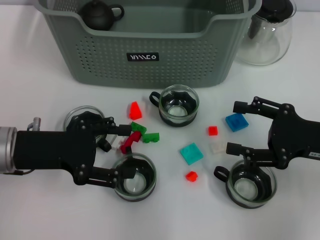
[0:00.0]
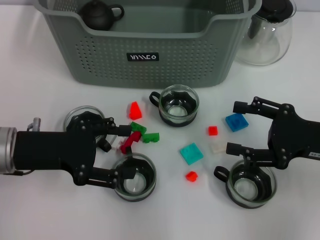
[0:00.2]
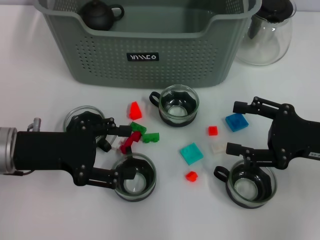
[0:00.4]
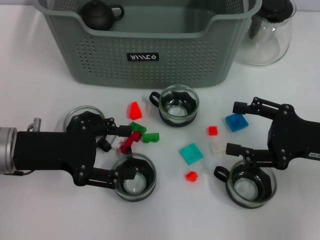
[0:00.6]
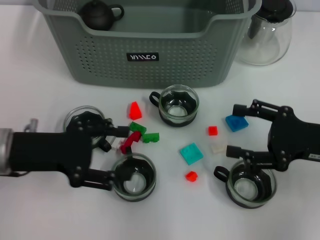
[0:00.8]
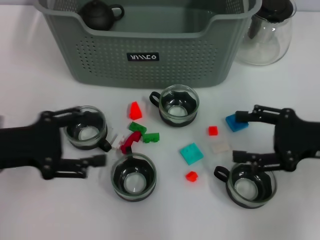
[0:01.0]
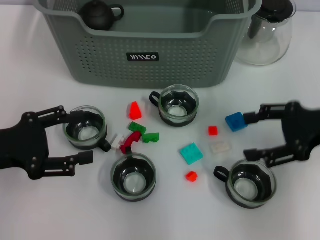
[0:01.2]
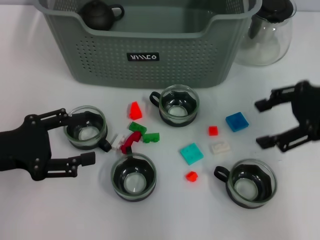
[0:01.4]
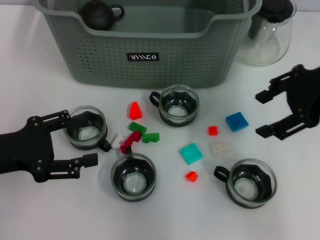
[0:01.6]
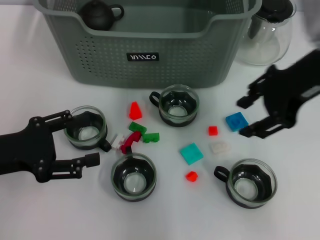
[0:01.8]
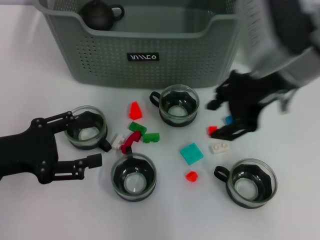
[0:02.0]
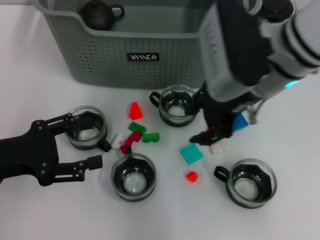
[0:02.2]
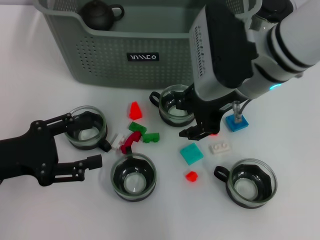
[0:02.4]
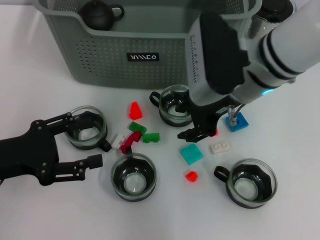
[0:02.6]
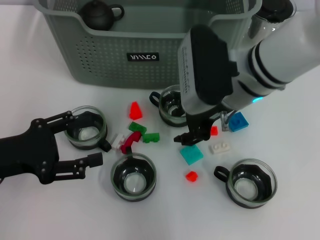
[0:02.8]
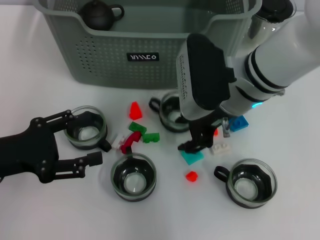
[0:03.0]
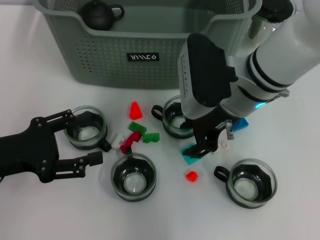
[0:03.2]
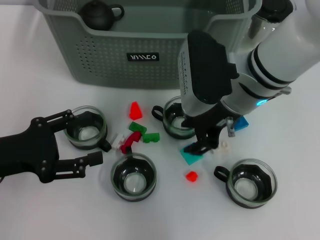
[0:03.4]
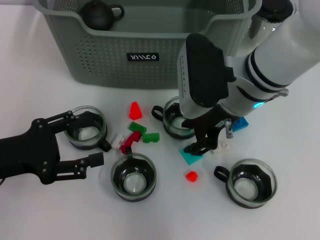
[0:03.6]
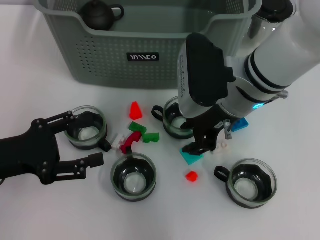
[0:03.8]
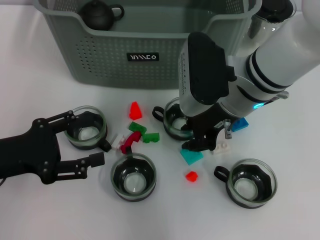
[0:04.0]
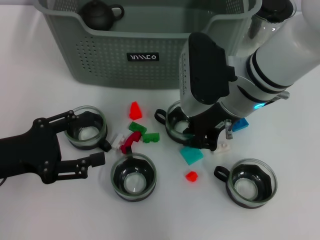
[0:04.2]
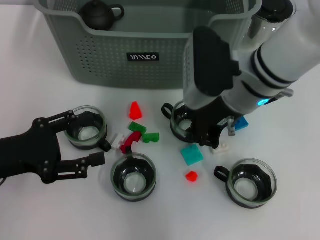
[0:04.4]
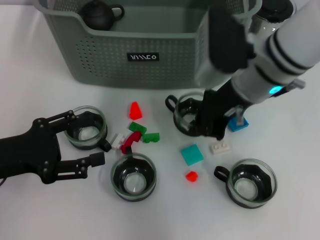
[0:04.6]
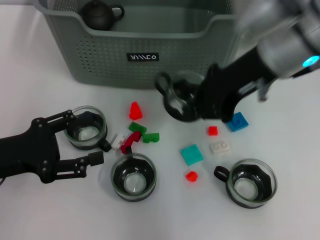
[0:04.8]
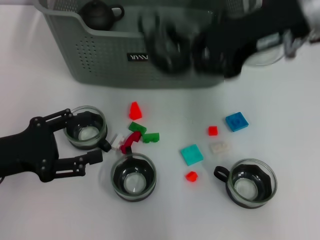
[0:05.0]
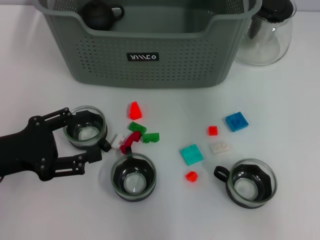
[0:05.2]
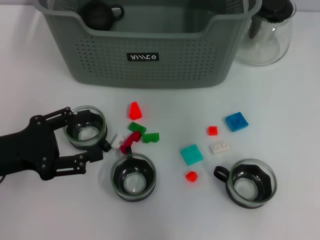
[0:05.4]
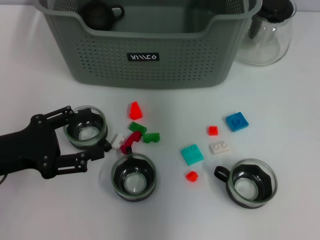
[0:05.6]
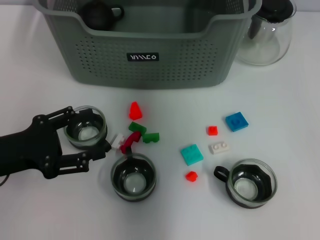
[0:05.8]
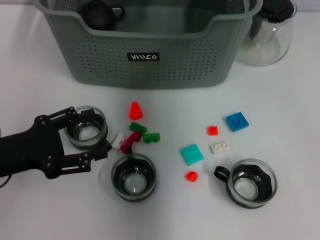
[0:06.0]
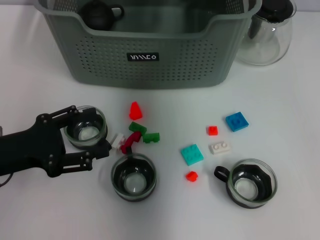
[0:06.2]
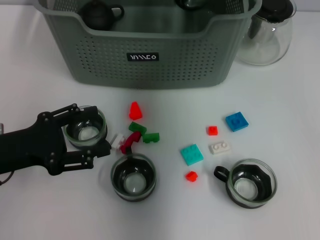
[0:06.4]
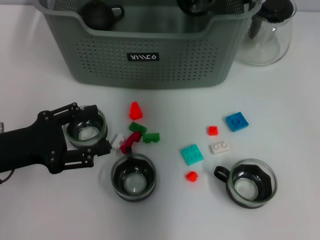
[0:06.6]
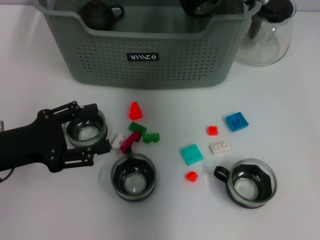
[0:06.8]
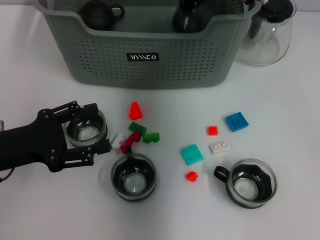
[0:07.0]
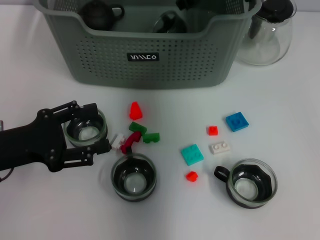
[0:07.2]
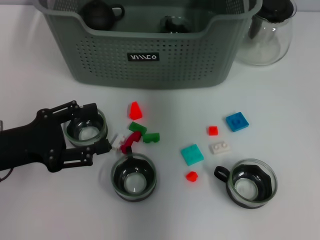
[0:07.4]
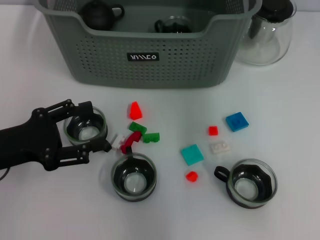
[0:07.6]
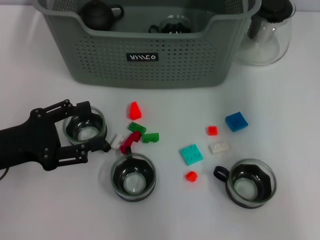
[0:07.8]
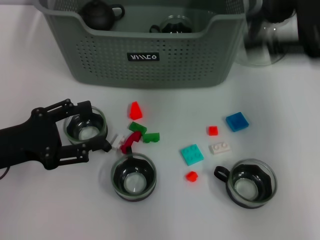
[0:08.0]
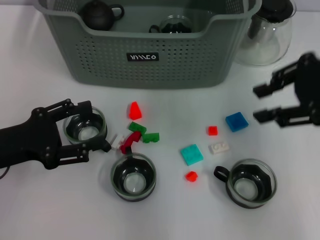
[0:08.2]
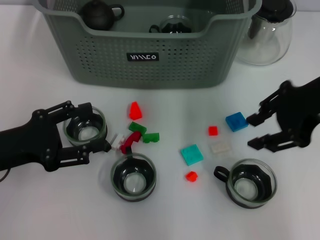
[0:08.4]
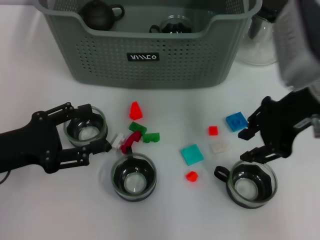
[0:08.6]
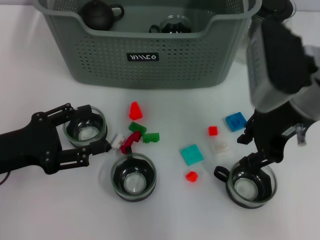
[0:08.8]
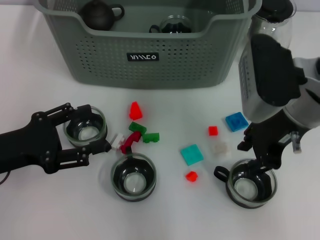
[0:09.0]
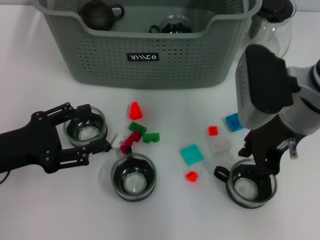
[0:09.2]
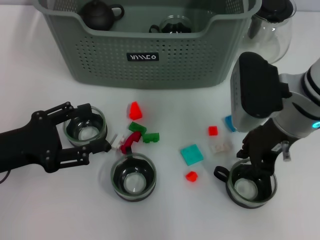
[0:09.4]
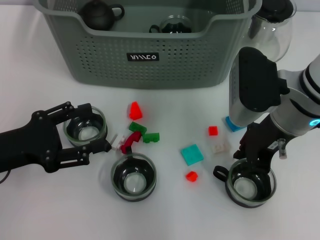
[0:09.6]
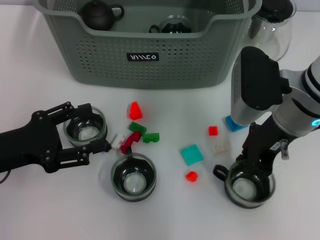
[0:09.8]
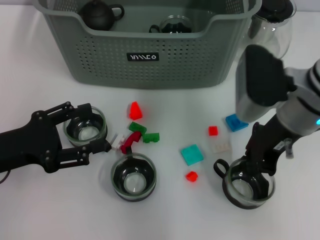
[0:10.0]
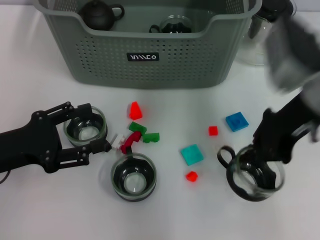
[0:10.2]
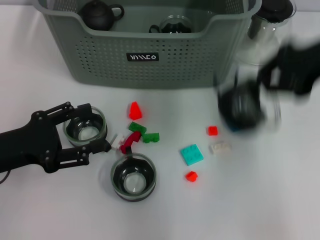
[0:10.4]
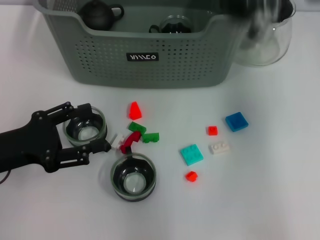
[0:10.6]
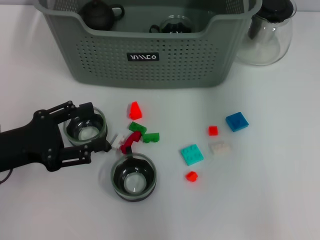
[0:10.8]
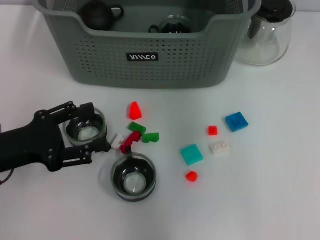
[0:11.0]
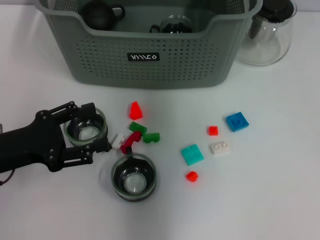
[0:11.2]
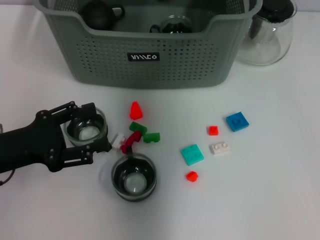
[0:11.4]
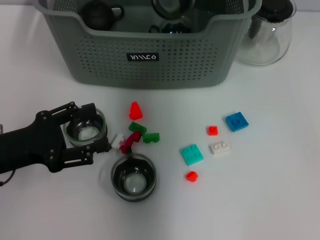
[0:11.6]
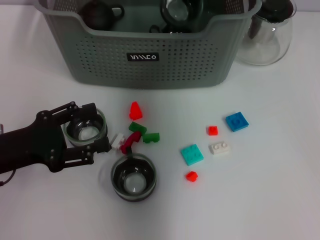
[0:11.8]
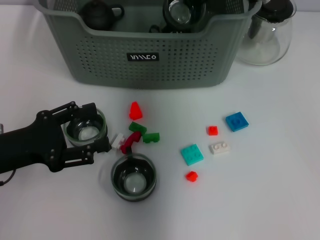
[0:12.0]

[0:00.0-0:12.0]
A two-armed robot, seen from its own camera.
Task of the whole recording: pick up the teacup on the table and place it into the storage bin, pick up the block on the table and place it into the storage bin.
Step, 0:00.0 to 0:04.2: Grasp the cup with right gripper.
Step, 0:04.6 to 0:07.0: Place the cup in the storage box with right gripper.
Step, 0:07.4 to 0:09.8: Grasp the cup with right gripper.
0:00.0 to 0:01.6: The right gripper moves upward and forward, approximately 15 cm. The left gripper ends up about 5 cm from where it was.
0:01.6 to 0:03.0: The right gripper travels to the left and downward by about 15 cm, and closes its fingers.
0:03.0 to 0:04.4: The right gripper closes its fingers.
0:04.4 to 0:06.0: The right gripper travels forward and upward by roughly 15 cm.
0:06.0 to 0:07.6: The right gripper travels to the right, upward and backward by some 15 cm, and opens.
0:07.6 to 0:09.0: The right gripper goes some 15 cm downward and backward.
0:09.0 to 0:10.4: The right gripper goes approximately 10 cm to the right and upward, and closes its fingers.
0:10.4 to 0:12.0: The right gripper heads to the left and forward, covering some 20 cm.

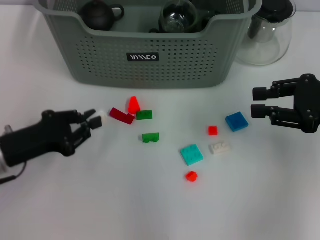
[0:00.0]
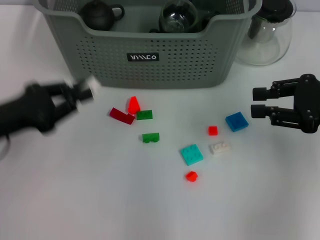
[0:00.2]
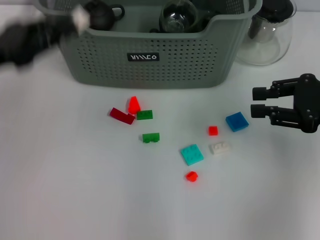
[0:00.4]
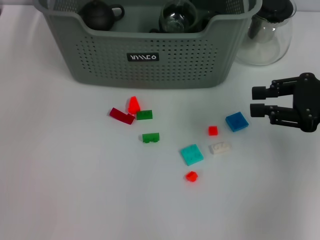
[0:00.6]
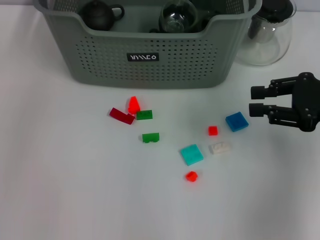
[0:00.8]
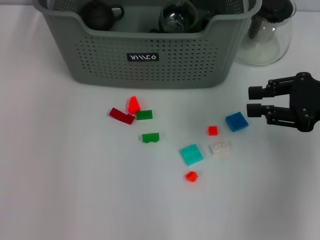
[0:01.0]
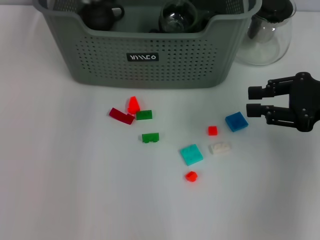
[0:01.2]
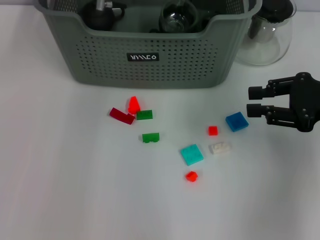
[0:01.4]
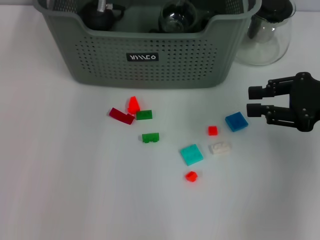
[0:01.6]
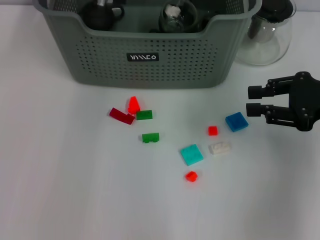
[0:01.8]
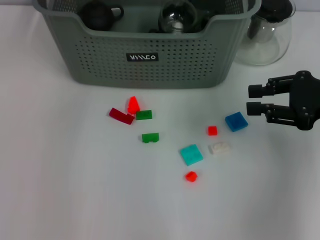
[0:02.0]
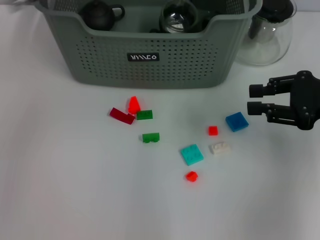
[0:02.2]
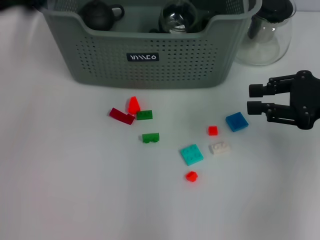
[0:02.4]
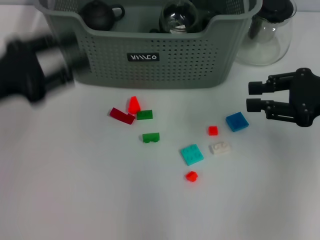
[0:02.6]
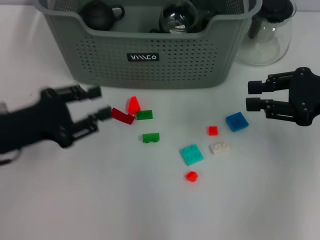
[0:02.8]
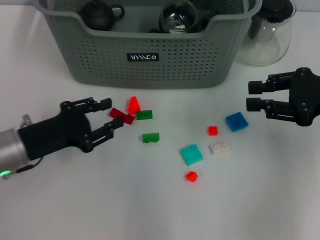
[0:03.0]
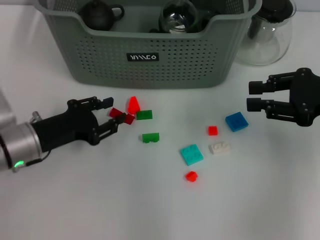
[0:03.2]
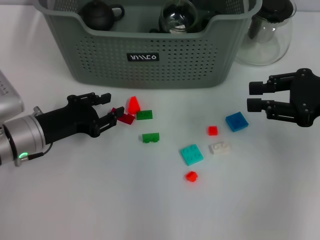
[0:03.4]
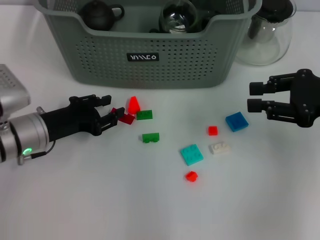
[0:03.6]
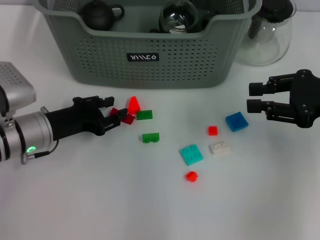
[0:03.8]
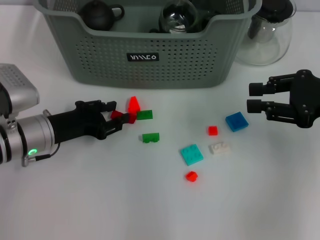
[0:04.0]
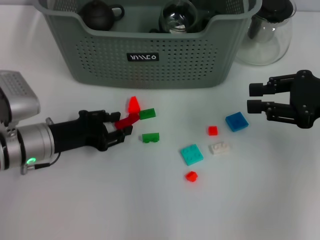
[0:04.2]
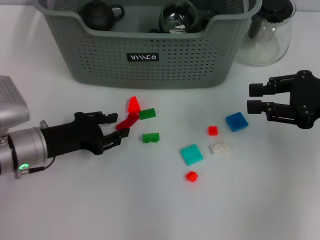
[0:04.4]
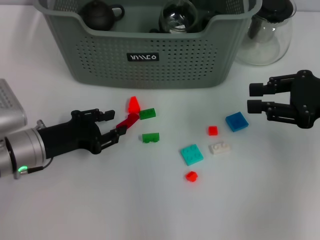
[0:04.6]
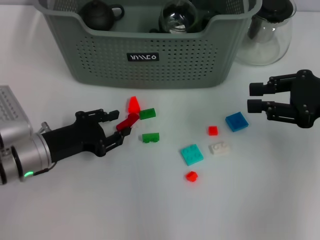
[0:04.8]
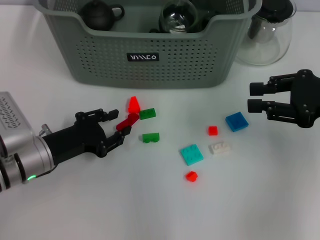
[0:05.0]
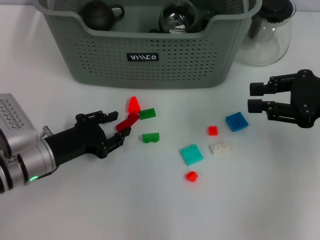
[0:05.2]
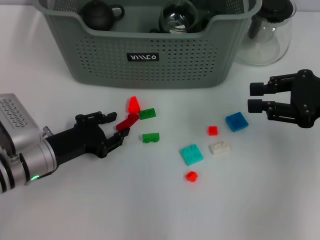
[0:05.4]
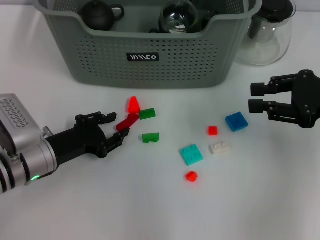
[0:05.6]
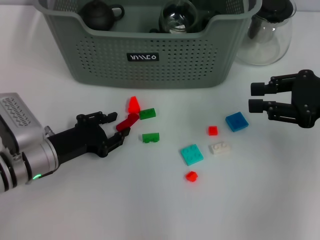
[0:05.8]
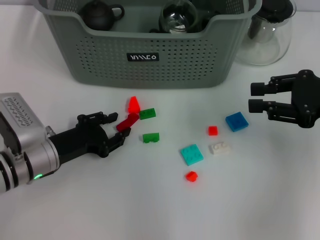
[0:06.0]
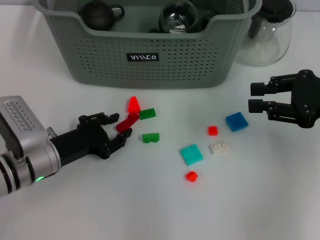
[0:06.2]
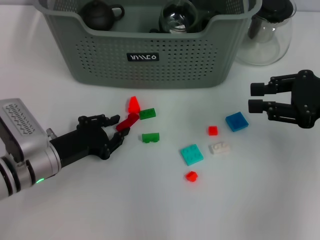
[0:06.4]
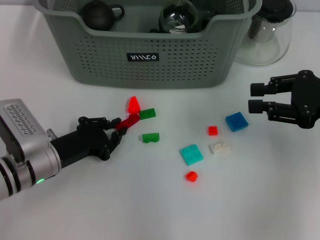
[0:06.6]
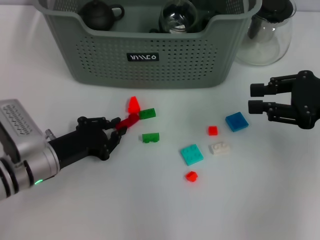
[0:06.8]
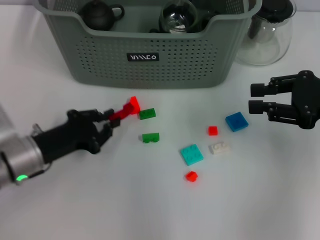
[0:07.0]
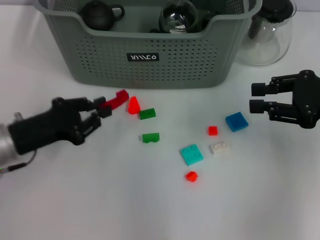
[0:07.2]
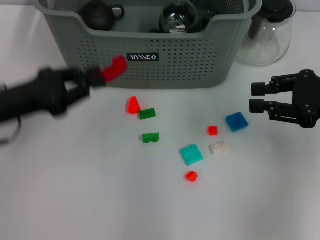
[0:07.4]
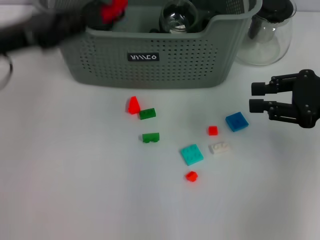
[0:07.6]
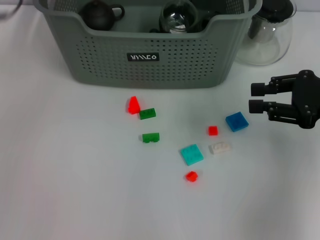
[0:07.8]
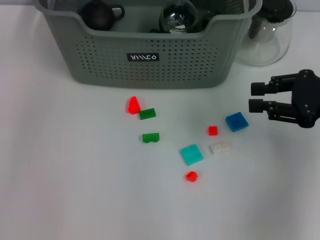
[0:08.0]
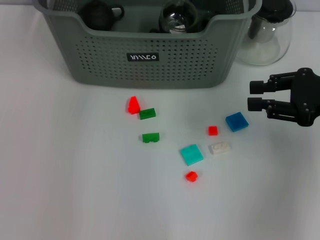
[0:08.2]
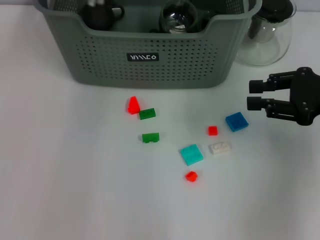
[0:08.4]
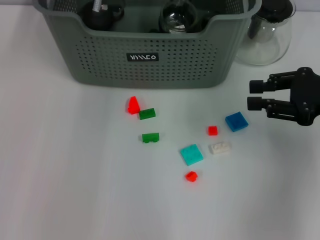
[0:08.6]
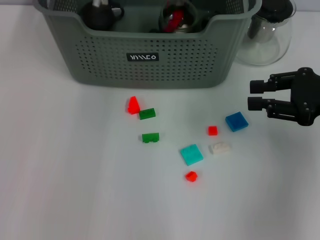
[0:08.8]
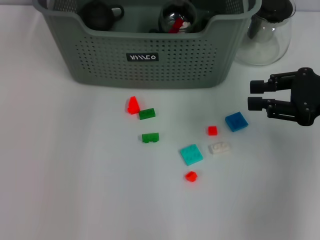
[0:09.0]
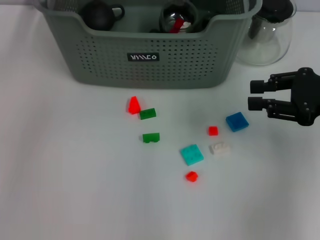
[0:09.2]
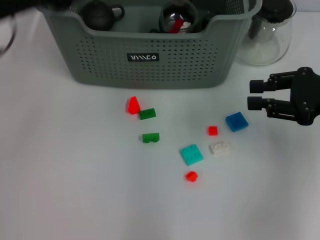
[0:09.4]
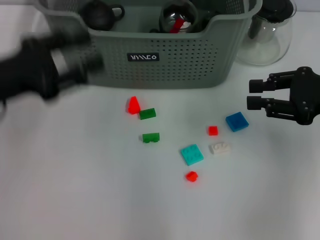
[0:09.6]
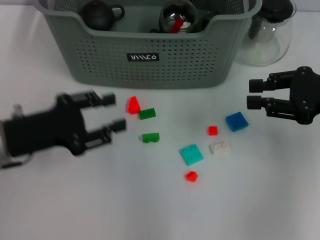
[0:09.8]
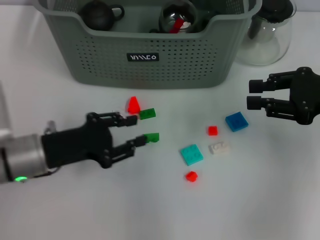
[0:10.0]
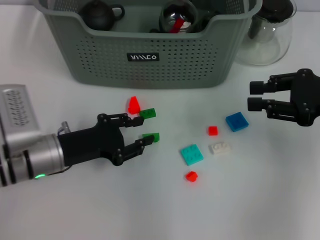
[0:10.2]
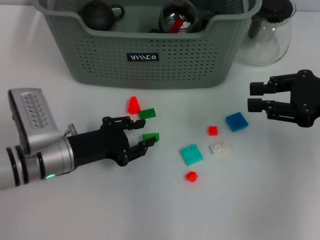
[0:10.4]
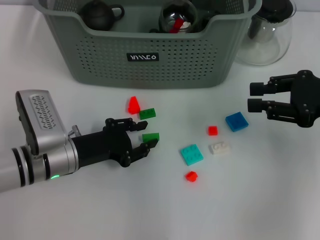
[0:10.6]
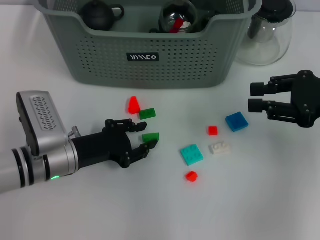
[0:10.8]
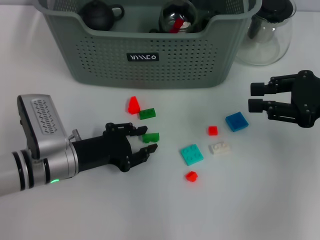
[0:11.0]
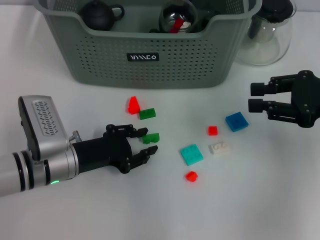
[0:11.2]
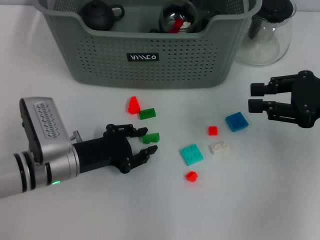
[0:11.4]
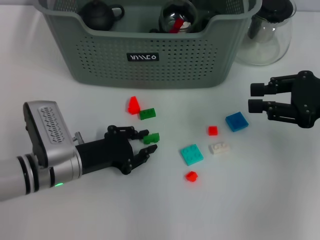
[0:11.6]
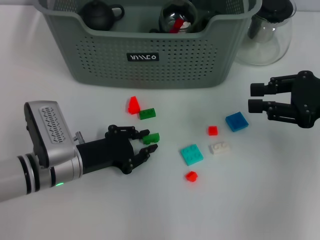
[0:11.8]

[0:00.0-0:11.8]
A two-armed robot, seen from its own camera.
Task of the whole recording: pick up the teacup on the table and place it into the storage bin, pick up the block on the table and place it into the storage bin.
Step, 0:00.0 to 0:01.6: Place the white block in the storage box with left gripper.
Step, 0:02.0 to 0:06.6: Grasp the red block with left gripper.
Step, 0:06.8 to 0:08.8: Place the red block in the storage box with left gripper.
0:00.0 to 0:01.4: The left gripper shifts approximately 30 cm forward, to the right and upward.
0:01.4 to 0:03.0: The left gripper is displaced backward, to the left and downward by approximately 30 cm.
0:03.0 to 0:06.0: The grippers move only a little.
0:06.0 to 0:07.4: The left gripper heads upward and to the left, covering about 10 cm.
0:07.4 to 0:08.8: The left gripper heads forward, to the right and upward, covering roughly 30 cm.
0:08.8 to 0:10.4: The left gripper is displaced backward, downward and to the left by some 30 cm.
0:10.4 to 0:11.8: The grippers move only a little.
